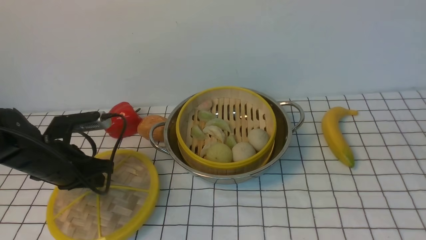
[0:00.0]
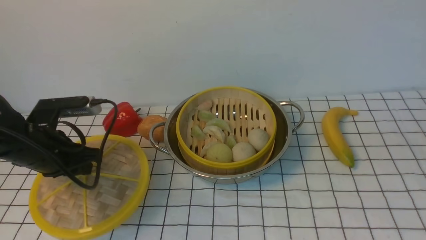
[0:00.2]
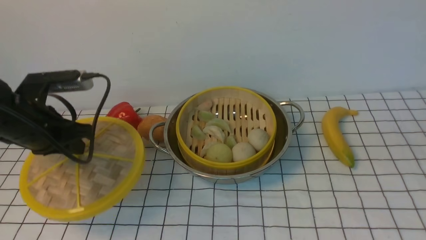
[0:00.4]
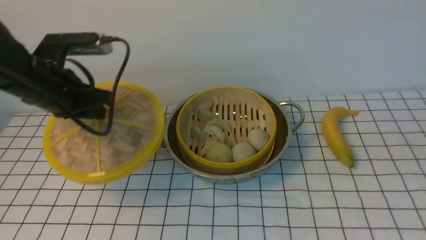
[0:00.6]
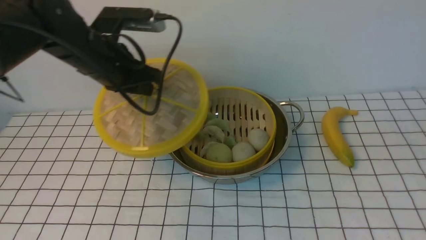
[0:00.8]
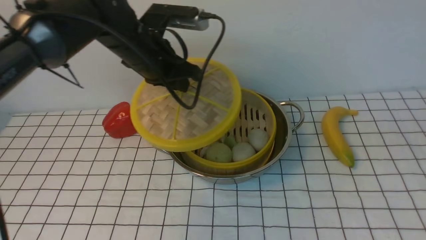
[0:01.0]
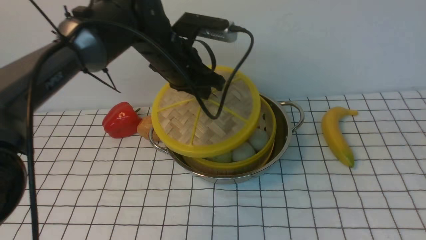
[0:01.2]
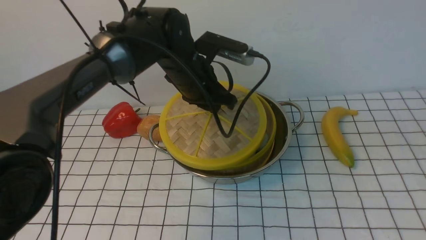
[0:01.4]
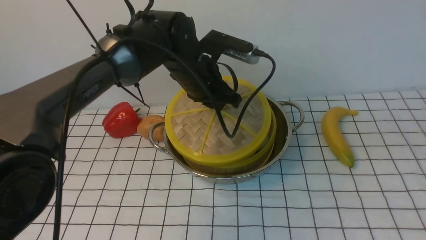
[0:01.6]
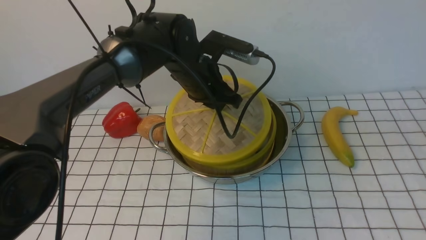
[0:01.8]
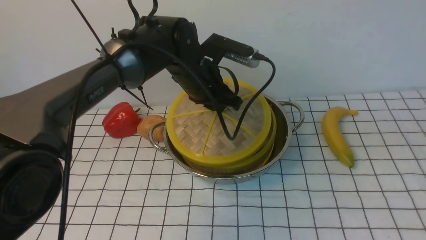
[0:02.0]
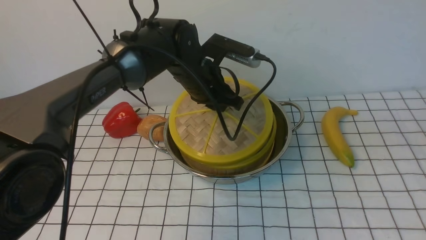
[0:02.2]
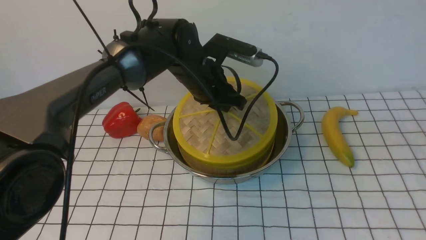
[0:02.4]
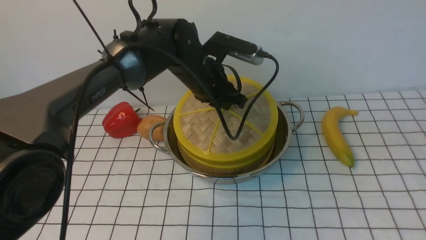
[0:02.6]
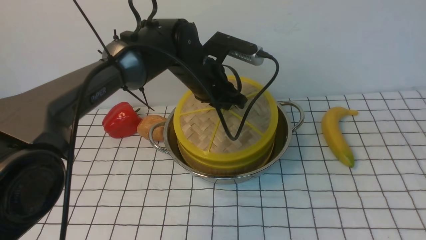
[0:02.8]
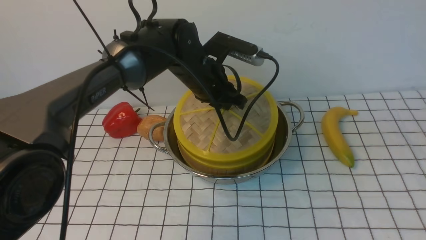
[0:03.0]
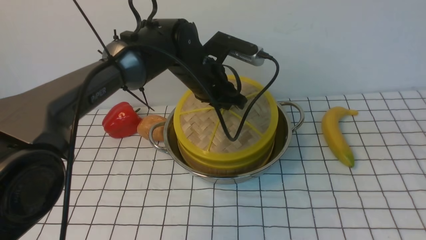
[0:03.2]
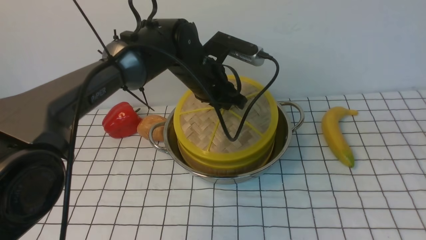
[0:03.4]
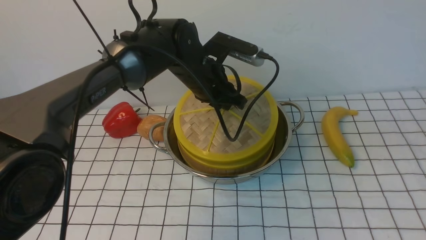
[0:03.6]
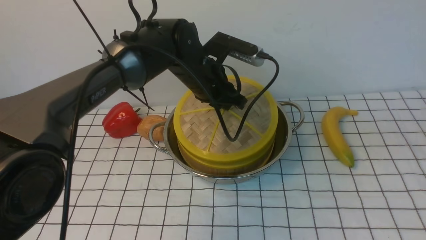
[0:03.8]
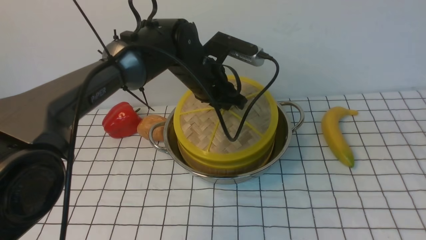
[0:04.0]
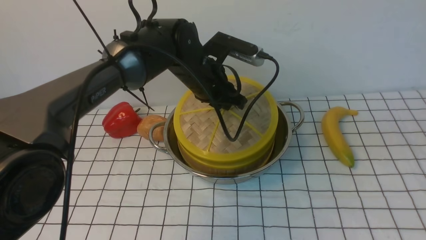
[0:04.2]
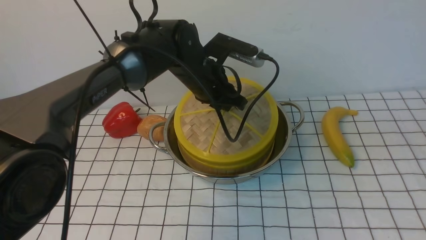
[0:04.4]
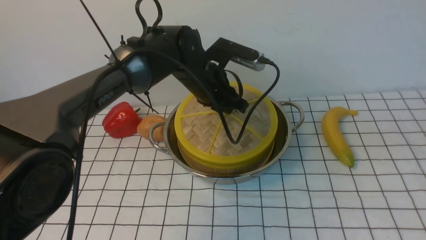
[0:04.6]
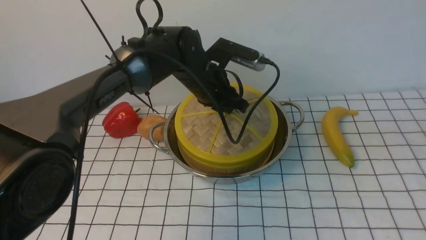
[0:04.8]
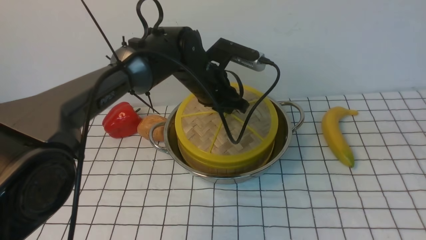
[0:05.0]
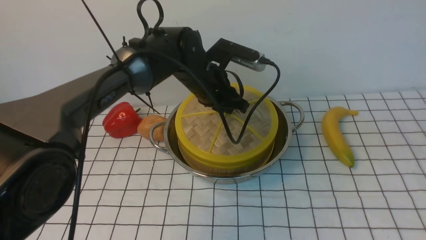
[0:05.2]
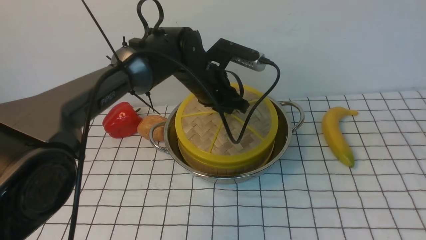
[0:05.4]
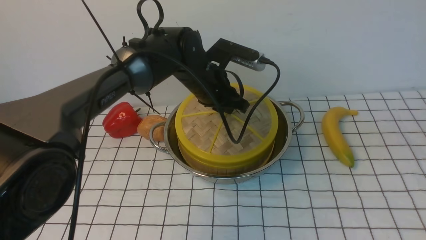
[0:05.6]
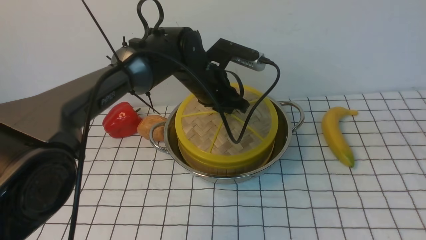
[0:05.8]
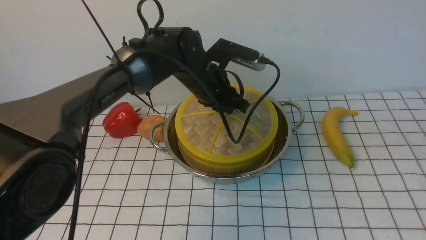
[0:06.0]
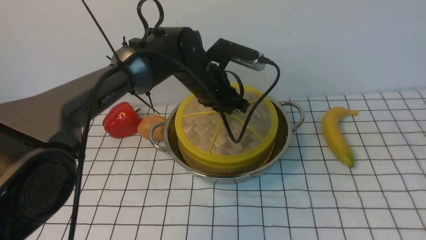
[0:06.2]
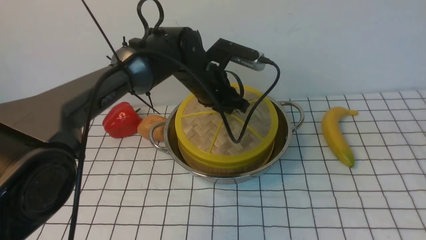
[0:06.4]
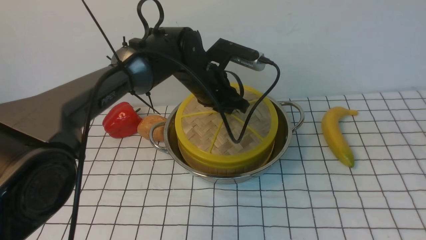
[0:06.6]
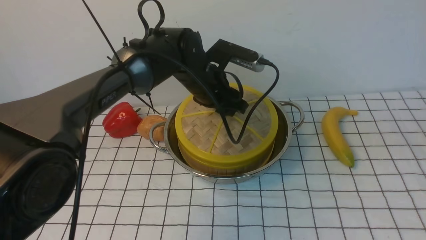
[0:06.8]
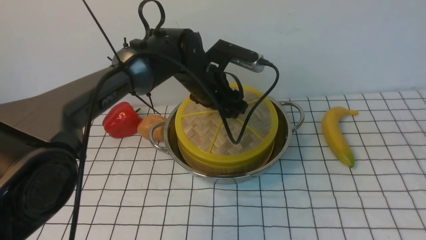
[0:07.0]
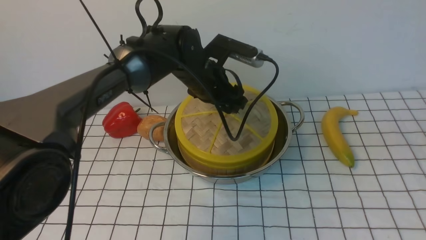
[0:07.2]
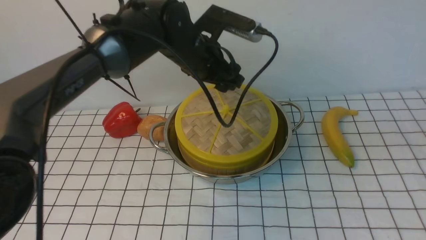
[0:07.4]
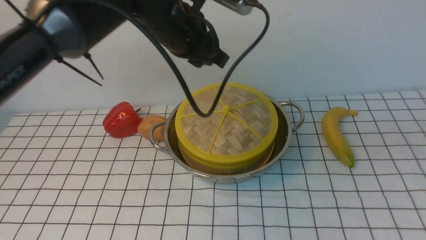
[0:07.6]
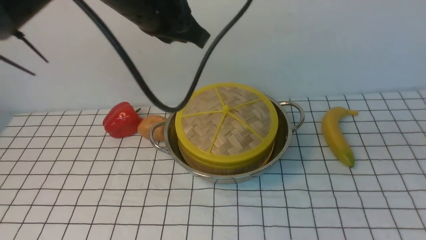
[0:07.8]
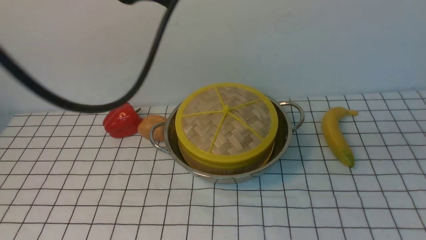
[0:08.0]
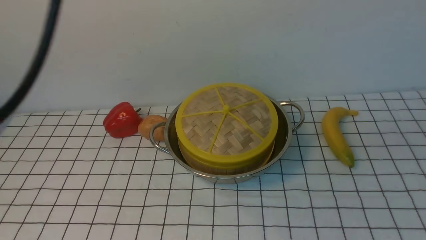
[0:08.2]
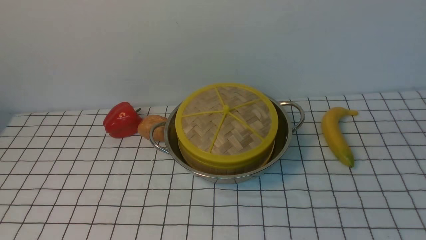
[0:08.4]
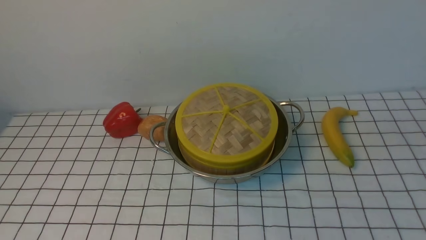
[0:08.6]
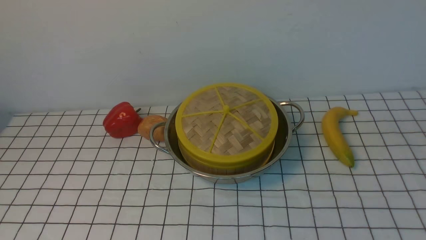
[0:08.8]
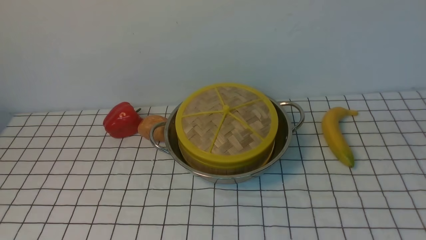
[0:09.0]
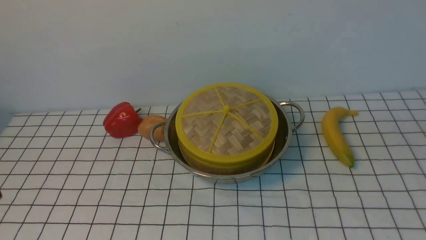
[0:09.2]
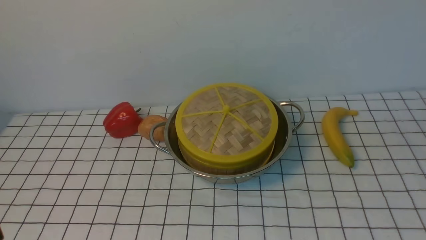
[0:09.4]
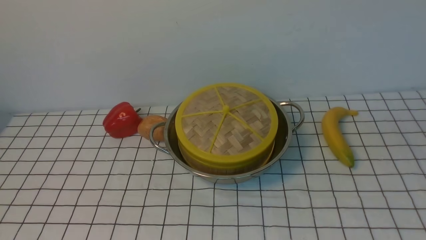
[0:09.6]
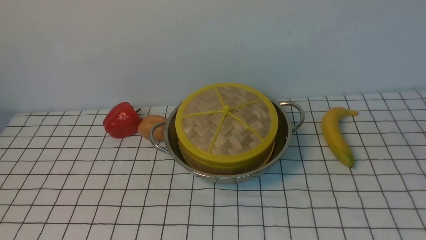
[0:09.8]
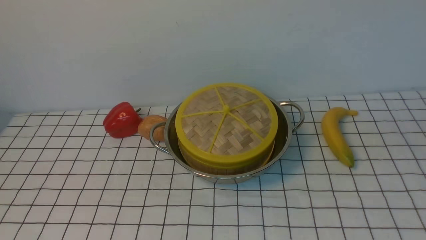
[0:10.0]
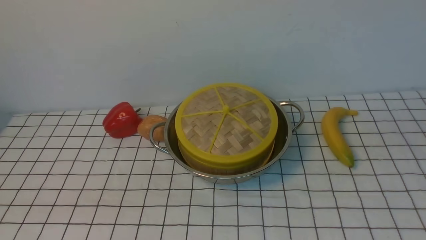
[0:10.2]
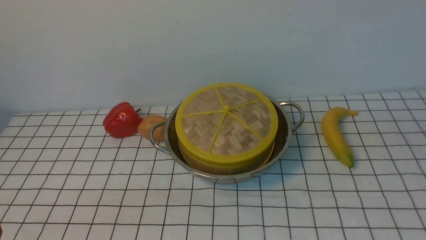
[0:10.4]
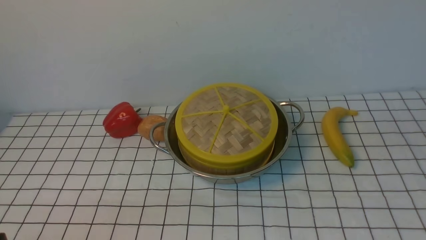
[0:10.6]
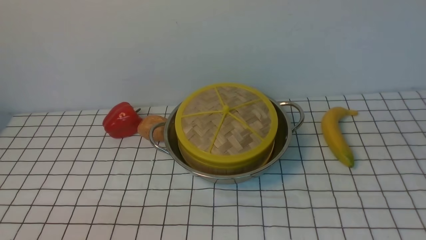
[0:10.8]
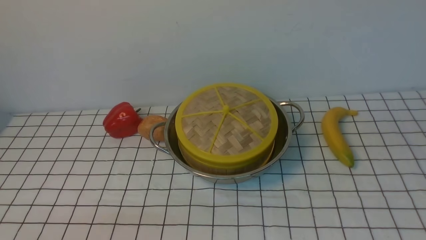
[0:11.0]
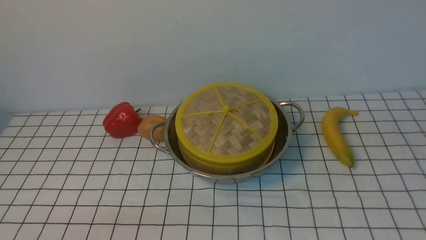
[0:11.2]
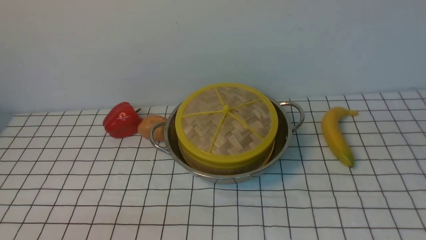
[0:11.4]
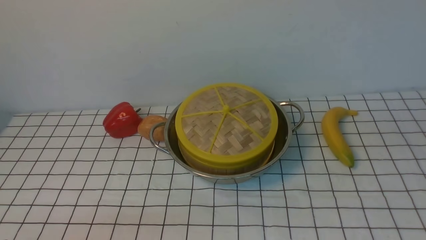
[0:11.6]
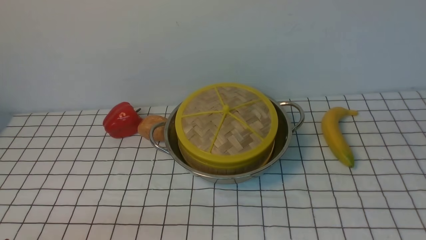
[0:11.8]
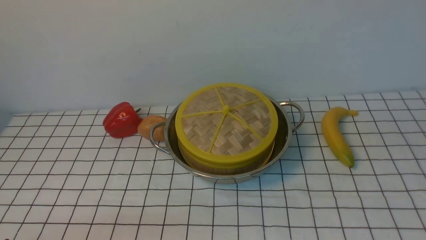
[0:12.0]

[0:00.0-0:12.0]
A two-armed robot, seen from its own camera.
Task of the whole recording: place the steamer in the pot on the white tablecloth, and put the lid on the steamer.
Step, 0:00.4 to 0:07.4: use the left arm to place the steamer lid on the steamer.
0:00.0 to 0:01.6: The left gripper is displaced to the right and forward by approximately 25 cm.
0:01.6 to 0:03.0: The two grippers keep their place.
0:03.0 to 0:04.4: Both grippers stay put.
0:04.4 to 0:06.0: Both grippers stay about where they are.
0:06.0 to 0:07.6: The left gripper travels upward by about 15 cm.
0:07.6 to 0:09.0: The left gripper moves backward and to the left, some 35 cm, and closes.

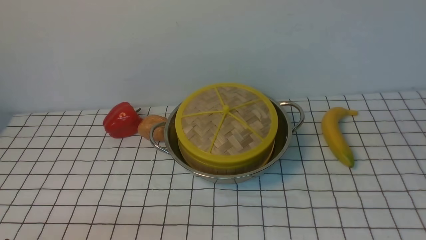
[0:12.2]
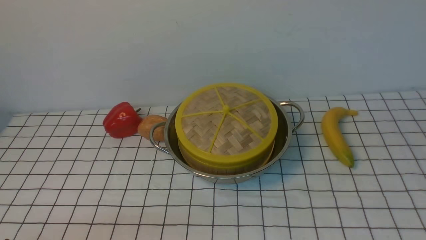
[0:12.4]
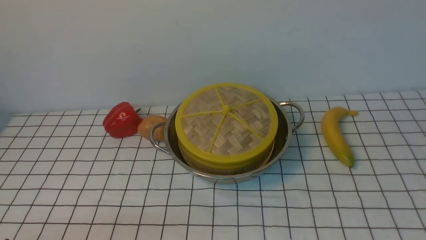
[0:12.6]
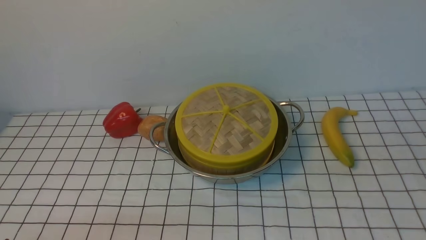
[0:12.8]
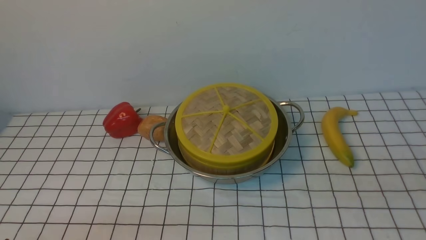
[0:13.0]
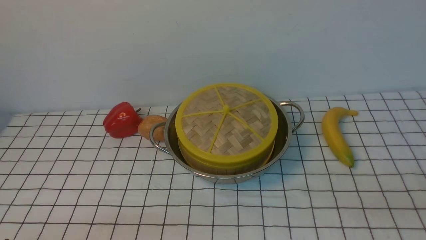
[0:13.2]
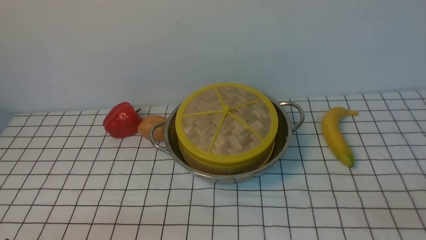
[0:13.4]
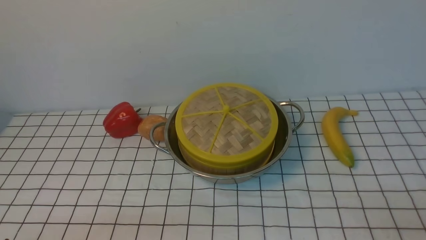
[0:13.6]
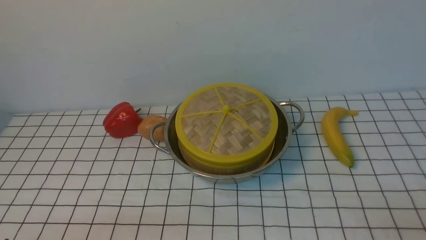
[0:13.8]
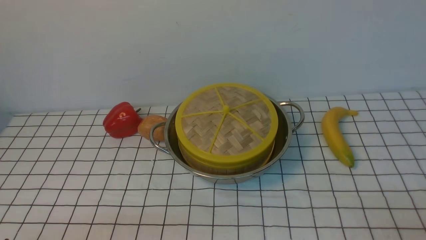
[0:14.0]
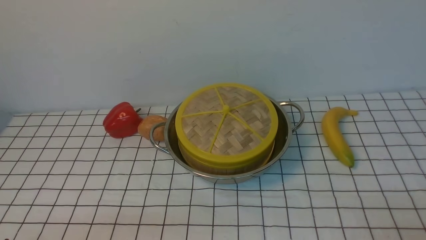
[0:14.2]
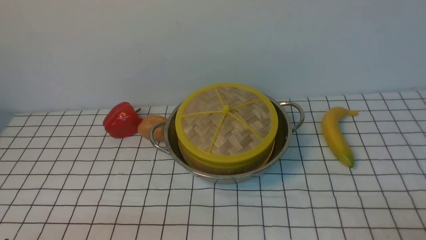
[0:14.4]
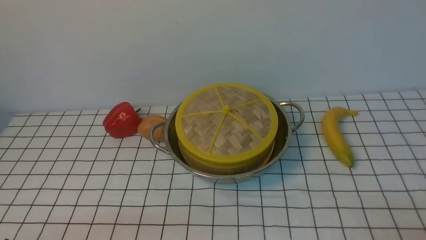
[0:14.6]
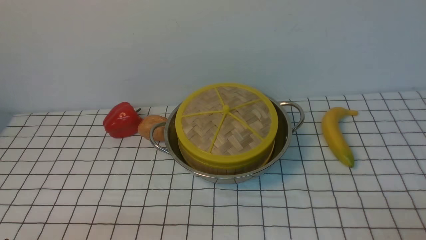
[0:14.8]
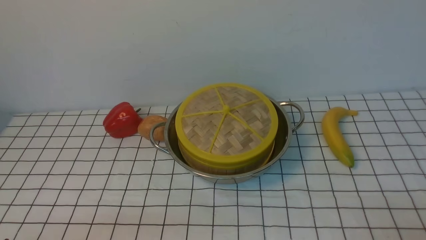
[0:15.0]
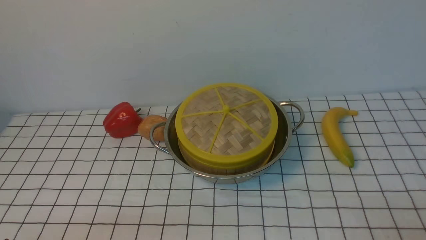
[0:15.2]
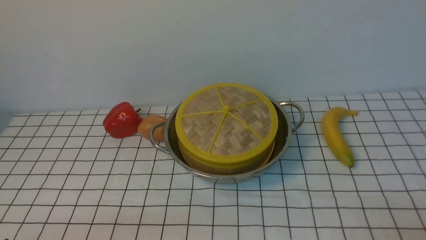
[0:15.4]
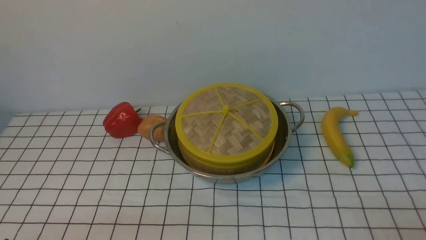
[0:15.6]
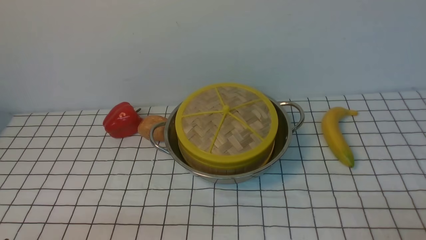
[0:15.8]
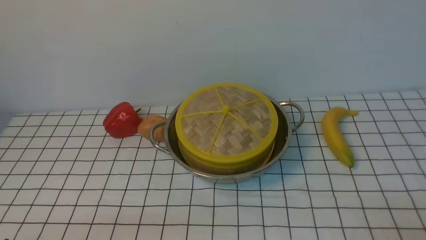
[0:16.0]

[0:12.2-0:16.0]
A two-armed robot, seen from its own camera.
Task of the whole recording: place the steamer in the pot on the white tablecloth, and put the lid on the steamer.
0:14.8 to 0:16.0: Neither gripper changes place.

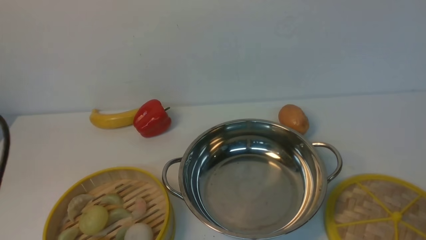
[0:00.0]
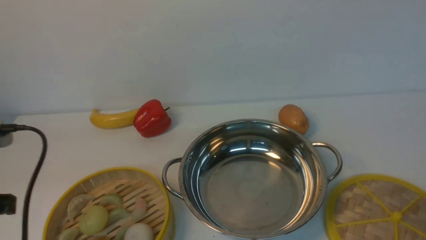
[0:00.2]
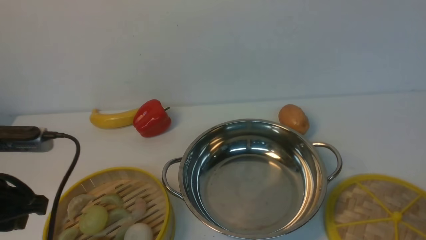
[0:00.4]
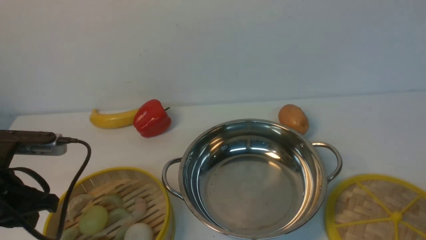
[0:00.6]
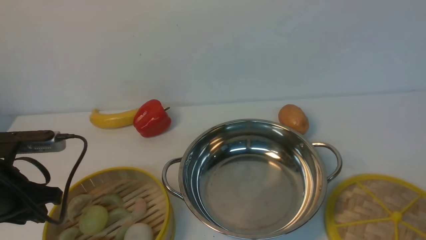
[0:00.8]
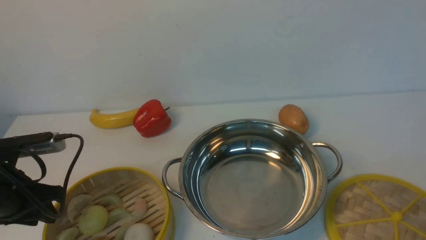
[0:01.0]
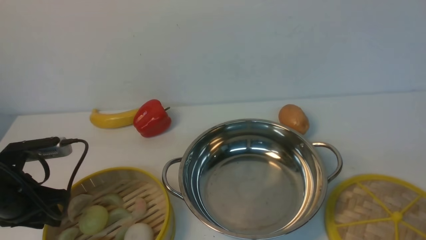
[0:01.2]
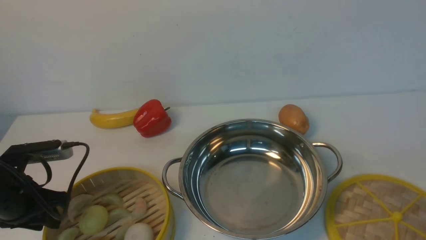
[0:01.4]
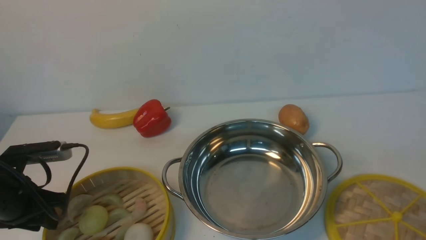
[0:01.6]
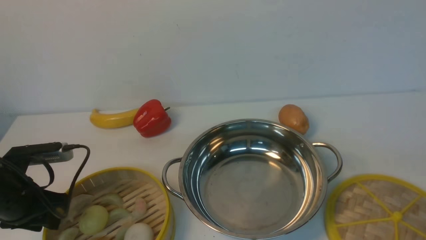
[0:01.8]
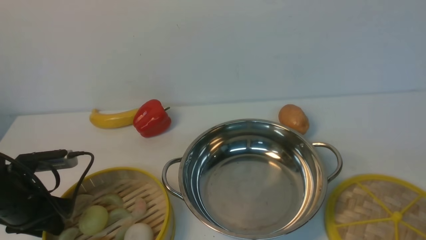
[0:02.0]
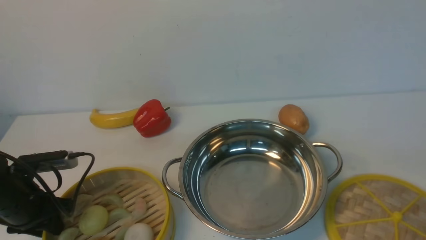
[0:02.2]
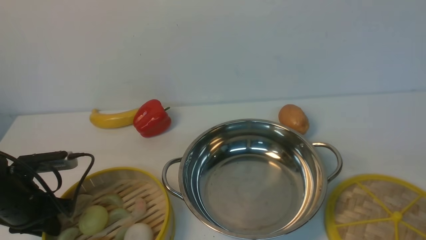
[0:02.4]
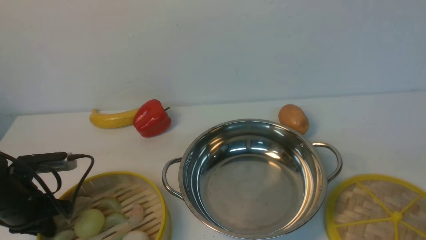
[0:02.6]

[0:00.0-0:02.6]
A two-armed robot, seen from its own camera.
Task of the whole recording: place the steamer in the pot on the white table, and put the lid on the steamer.
0:00.0 to 0:01.2: The left gripper travels downward and forward by approximately 20 cm.
0:01.2 to 0:02.6: The left gripper closes up.
